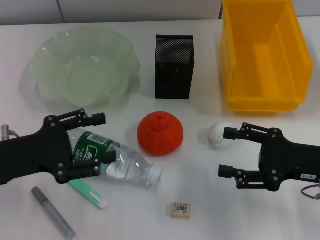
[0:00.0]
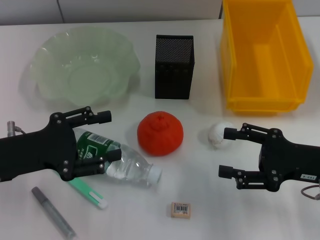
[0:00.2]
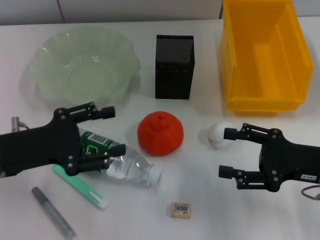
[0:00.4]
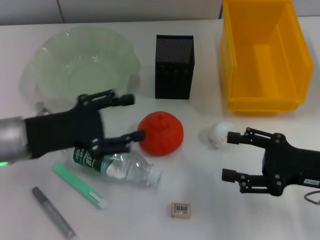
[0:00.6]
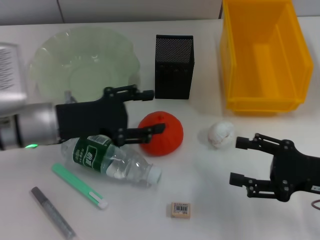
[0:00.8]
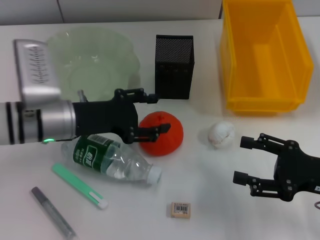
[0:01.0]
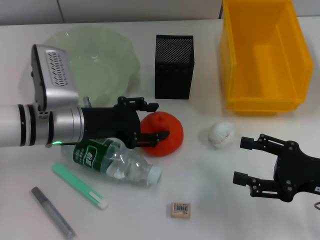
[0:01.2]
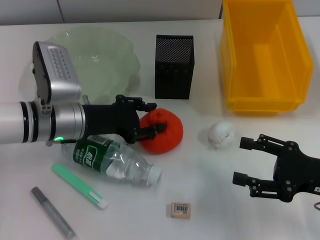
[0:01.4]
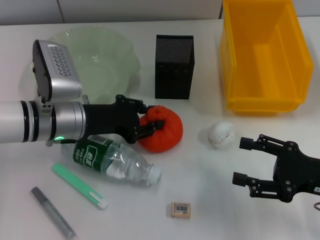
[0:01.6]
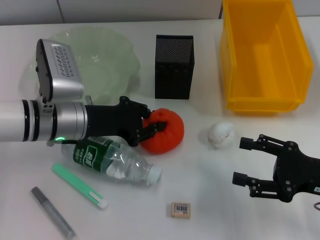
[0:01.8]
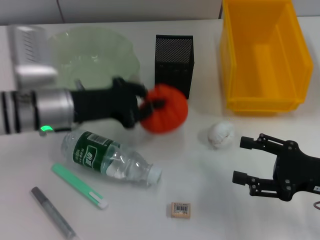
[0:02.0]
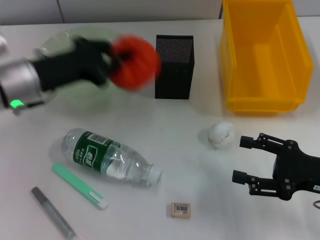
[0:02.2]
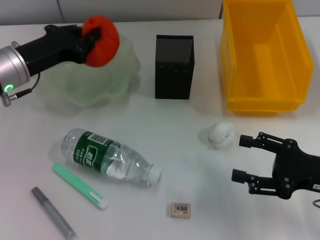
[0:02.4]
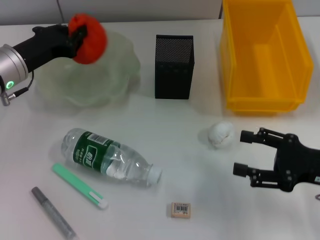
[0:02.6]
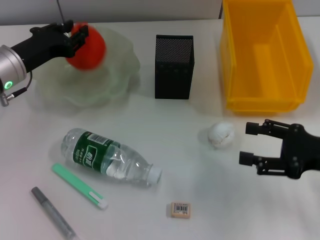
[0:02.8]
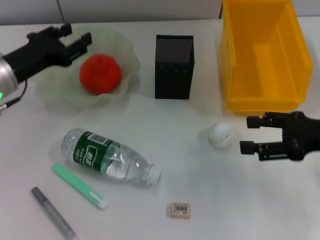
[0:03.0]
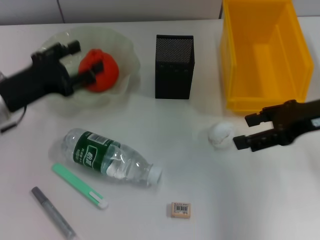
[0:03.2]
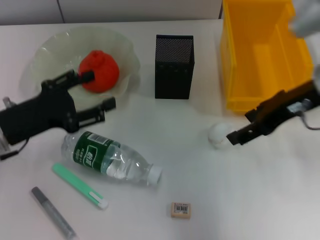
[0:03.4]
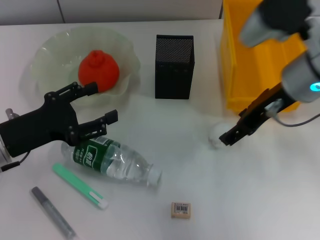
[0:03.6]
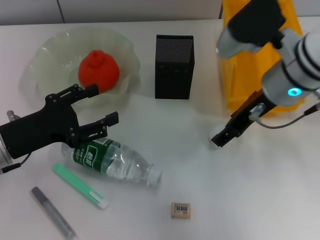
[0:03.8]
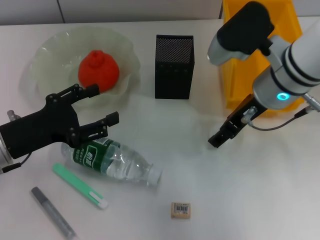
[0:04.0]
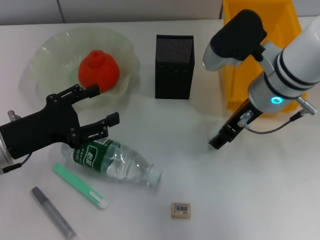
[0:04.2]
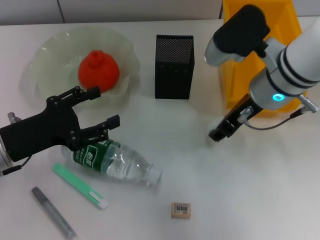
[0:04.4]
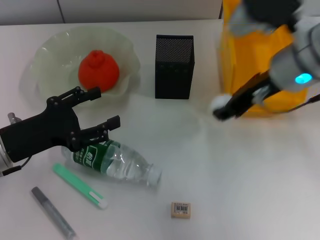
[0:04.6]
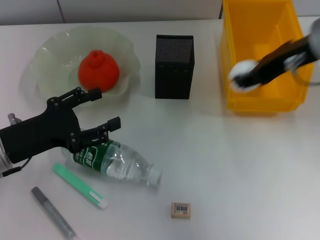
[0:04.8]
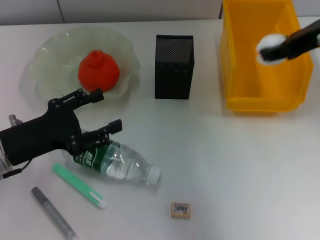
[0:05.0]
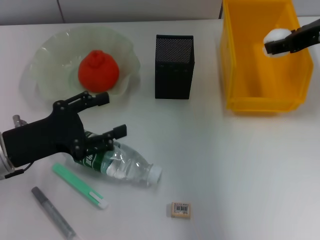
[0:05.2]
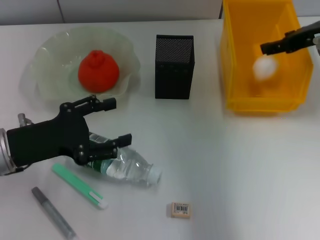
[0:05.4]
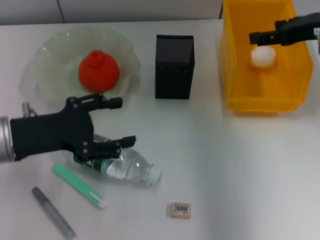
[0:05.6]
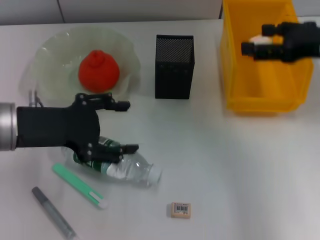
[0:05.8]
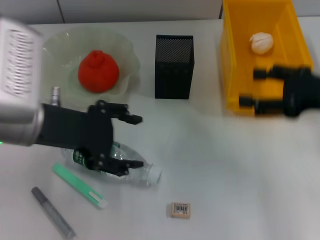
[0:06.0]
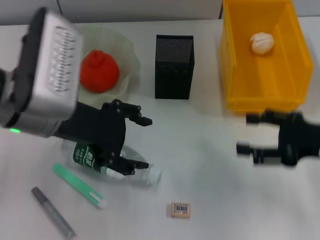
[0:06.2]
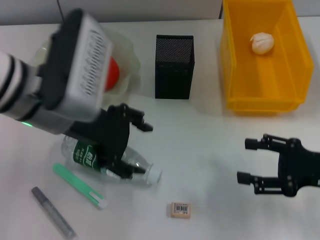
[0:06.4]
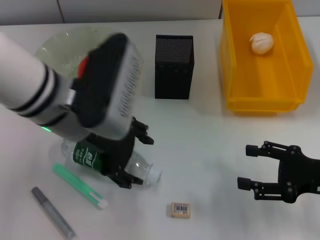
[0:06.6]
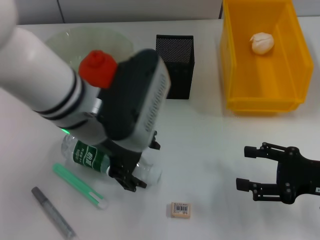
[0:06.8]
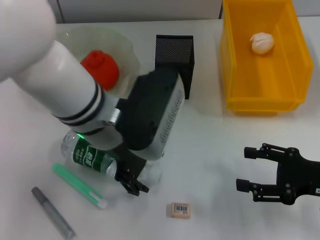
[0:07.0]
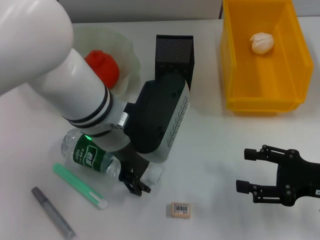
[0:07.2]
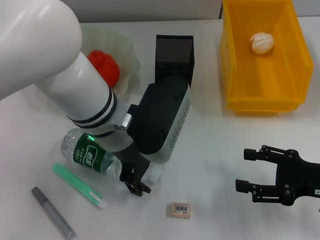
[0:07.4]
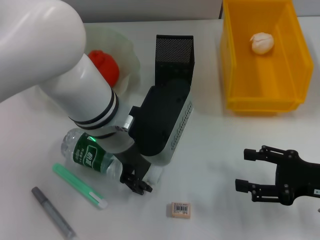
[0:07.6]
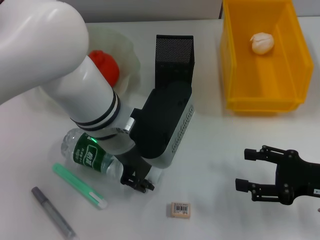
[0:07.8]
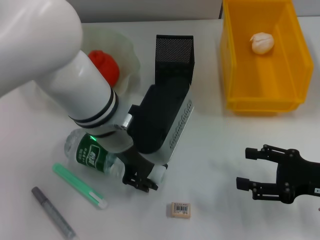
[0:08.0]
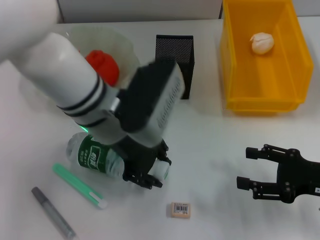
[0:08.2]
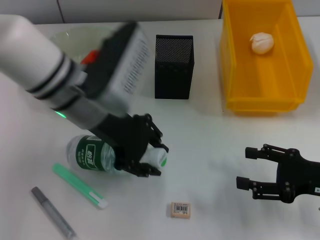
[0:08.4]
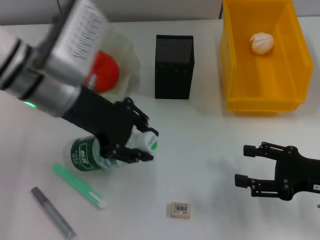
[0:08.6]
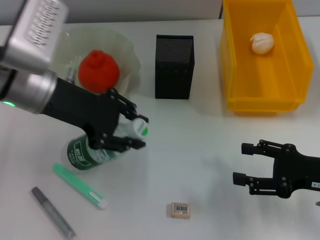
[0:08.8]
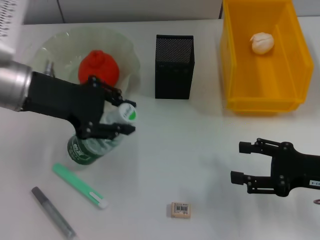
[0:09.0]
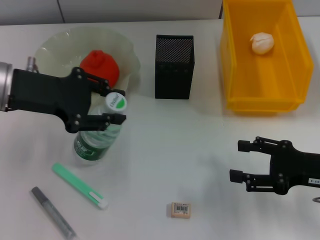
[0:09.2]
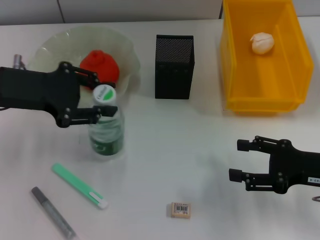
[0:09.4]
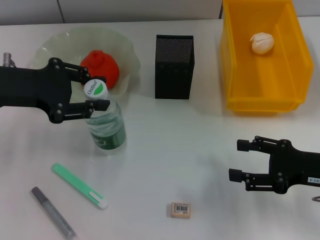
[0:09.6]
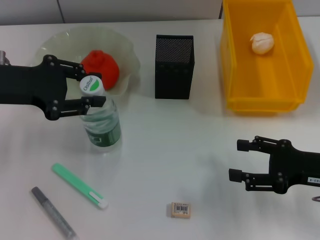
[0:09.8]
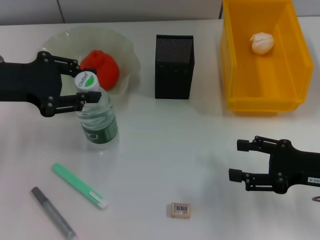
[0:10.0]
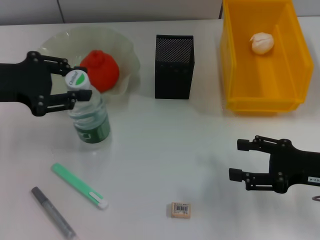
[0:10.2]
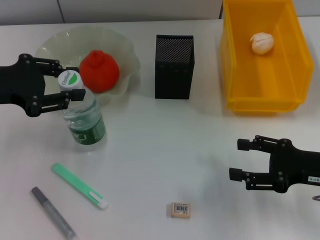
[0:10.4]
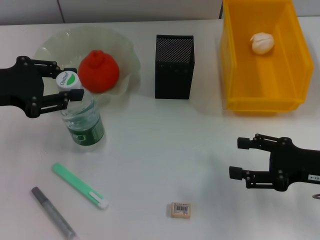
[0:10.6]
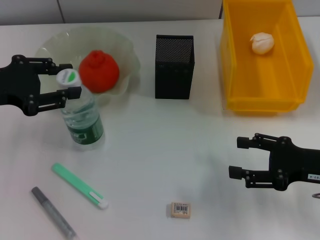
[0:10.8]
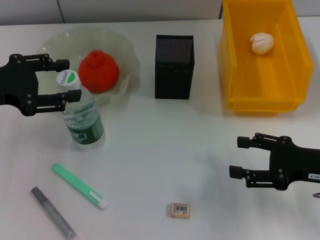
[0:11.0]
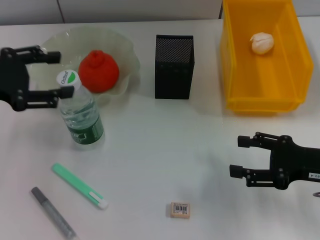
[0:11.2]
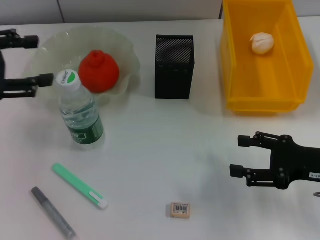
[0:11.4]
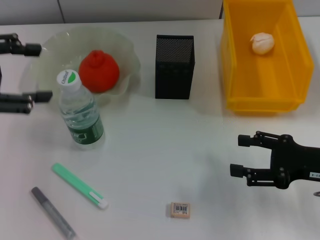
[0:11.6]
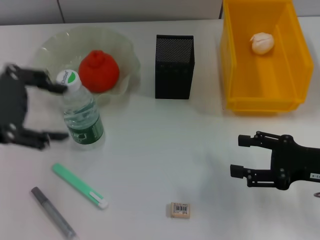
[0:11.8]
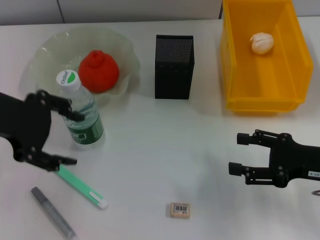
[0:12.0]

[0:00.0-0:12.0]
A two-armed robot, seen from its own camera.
Step, 0.0 to 1.6 s: Grab the orange with the left hand.
Step, 1.8 to 2.8 s: Place the orange into the fruit bowl with the left hand.
Step, 3.2 to 4.2 s: Grab the paper ball with the right hand.
Step, 4.4 to 5.6 s: Place the paper ball into the trash can with the right hand.
Step, 5.8 to 7.8 s: Grab the water bottle with the left hand.
Step, 8.2 to 10.8 s: Place the water bottle on the table with the left hand.
0.0 to 1.6 s: The left gripper goes some 15 cm forward and to the right.
1.6 to 3.0 s: The right gripper shifts approximately 10 cm upward and forward; the left gripper heads to the left, covering roughly 10 cm, and closes its fingers.
3.0 to 4.4 s: The left gripper heads backward, covering roughly 10 cm, and opens. Meanwhile the right gripper is displaced to the left and forward by approximately 15 cm.
4.4 to 6.0 s: The left gripper heads upward and to the right, covering approximately 10 cm. Meanwhile the right gripper moves to the right and backward, about 15 cm.
6.0 to 7.6 s: The right gripper shifts roughly 10 cm downward and backward. Meanwhile the left gripper shifts roughly 10 cm to the right.
7.6 to 9.0 s: The left gripper goes about 15 cm to the left, and closes its fingers.
9.0 to 10.4 s: The left gripper is displaced to the left by roughly 10 cm.
10.4 to 12.0 s: The left gripper shifts some 10 cm upward and to the right, and opens up.

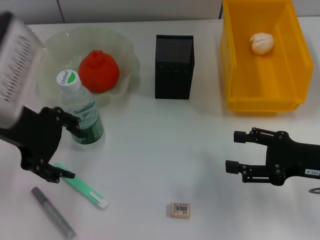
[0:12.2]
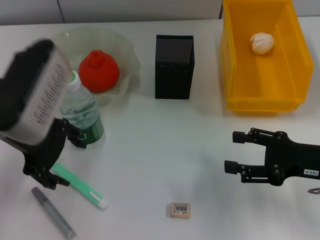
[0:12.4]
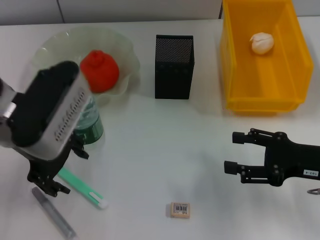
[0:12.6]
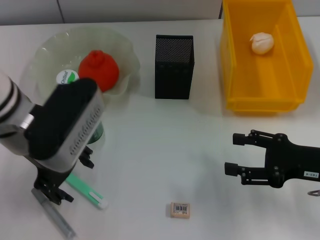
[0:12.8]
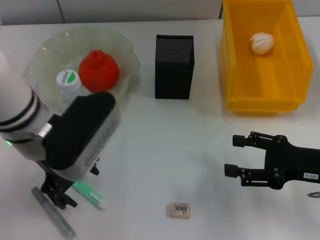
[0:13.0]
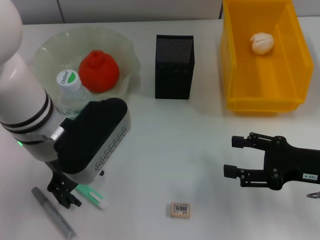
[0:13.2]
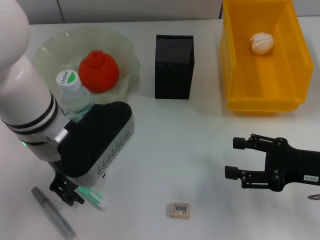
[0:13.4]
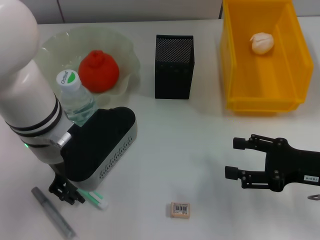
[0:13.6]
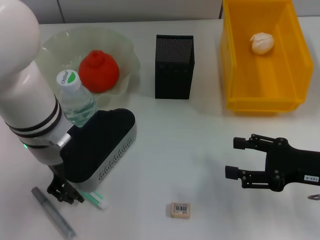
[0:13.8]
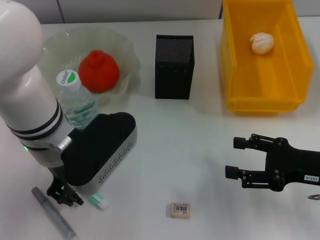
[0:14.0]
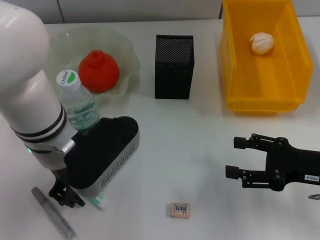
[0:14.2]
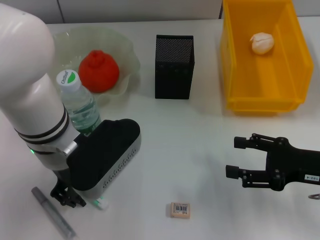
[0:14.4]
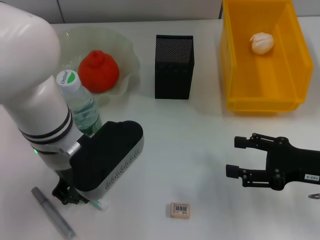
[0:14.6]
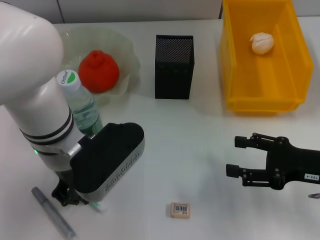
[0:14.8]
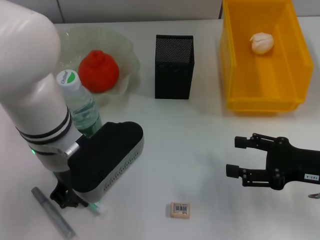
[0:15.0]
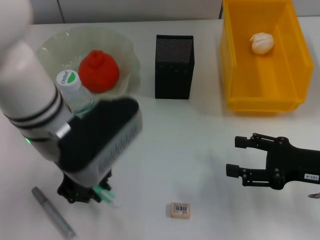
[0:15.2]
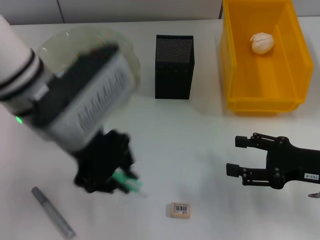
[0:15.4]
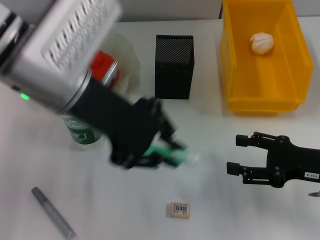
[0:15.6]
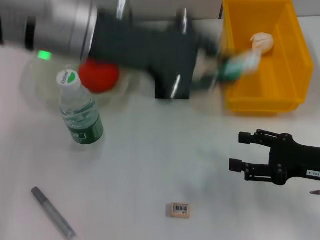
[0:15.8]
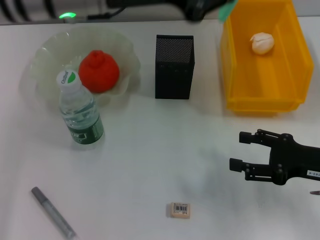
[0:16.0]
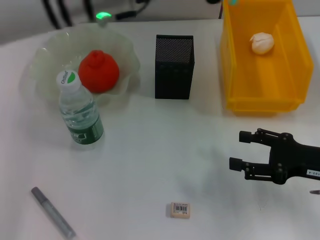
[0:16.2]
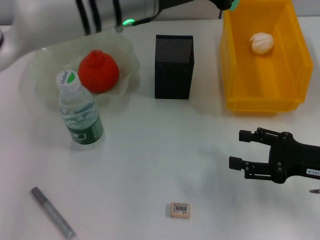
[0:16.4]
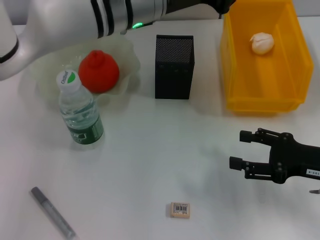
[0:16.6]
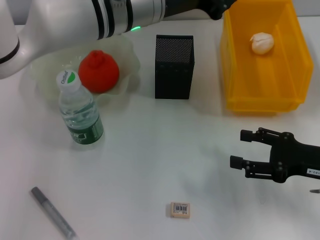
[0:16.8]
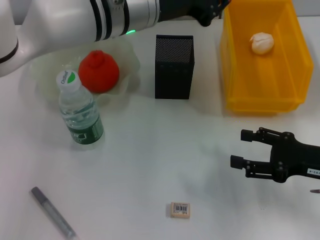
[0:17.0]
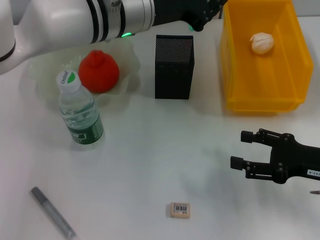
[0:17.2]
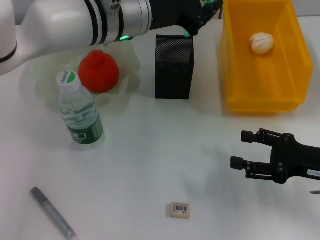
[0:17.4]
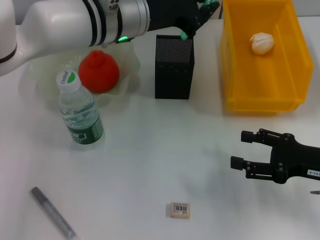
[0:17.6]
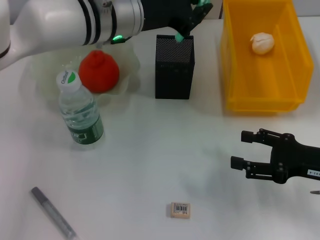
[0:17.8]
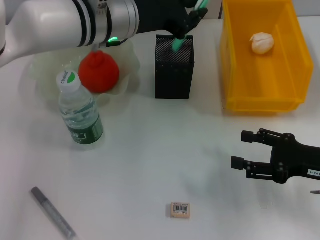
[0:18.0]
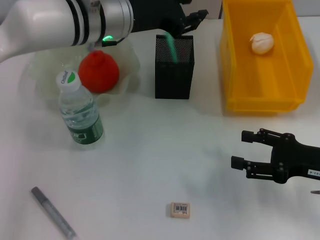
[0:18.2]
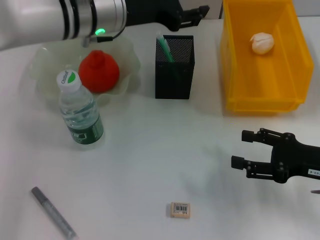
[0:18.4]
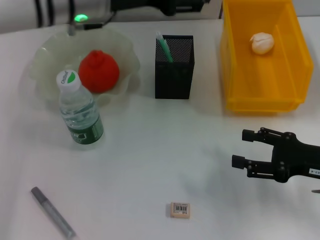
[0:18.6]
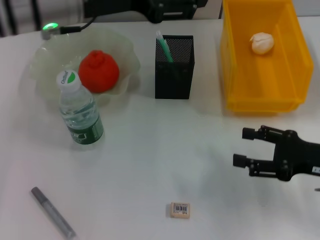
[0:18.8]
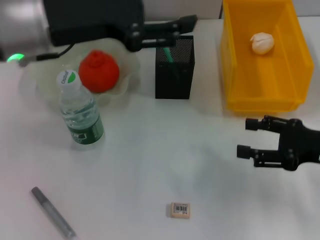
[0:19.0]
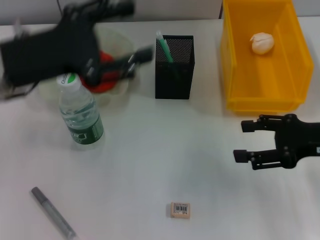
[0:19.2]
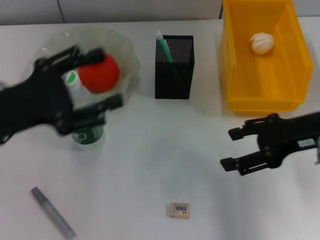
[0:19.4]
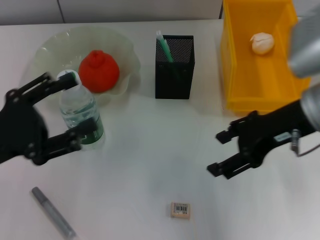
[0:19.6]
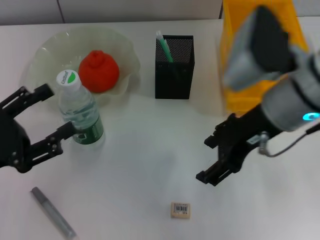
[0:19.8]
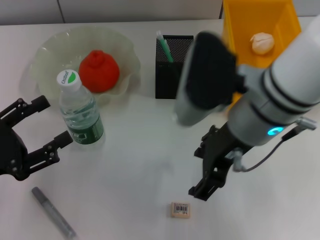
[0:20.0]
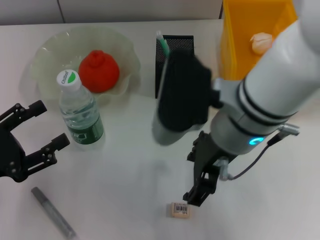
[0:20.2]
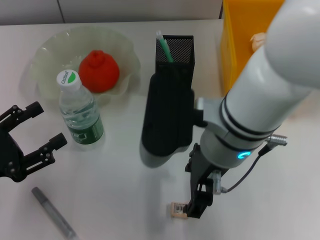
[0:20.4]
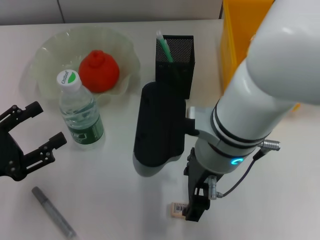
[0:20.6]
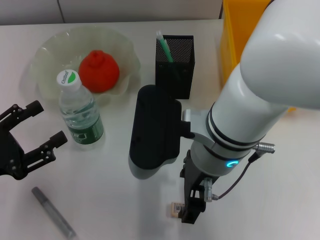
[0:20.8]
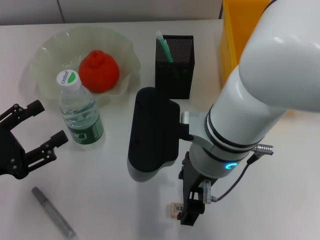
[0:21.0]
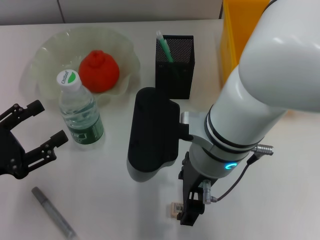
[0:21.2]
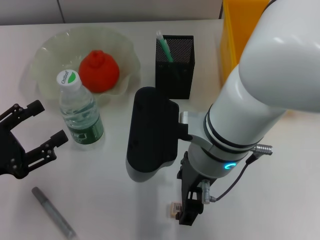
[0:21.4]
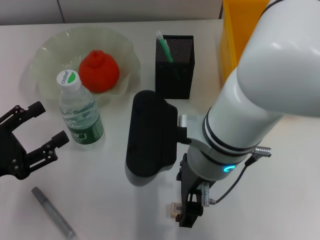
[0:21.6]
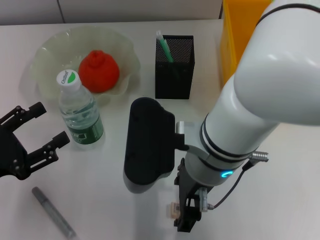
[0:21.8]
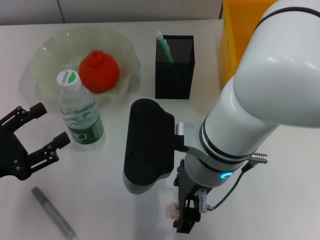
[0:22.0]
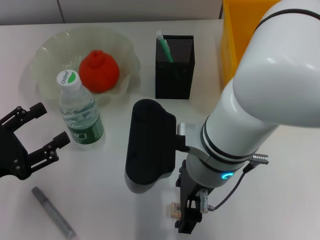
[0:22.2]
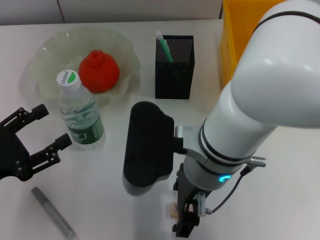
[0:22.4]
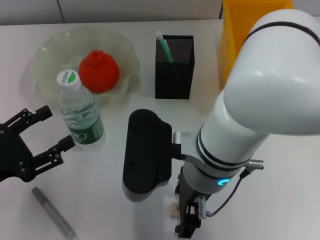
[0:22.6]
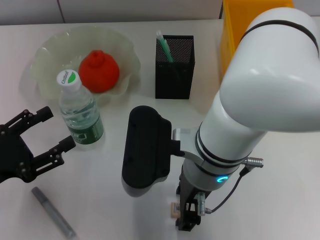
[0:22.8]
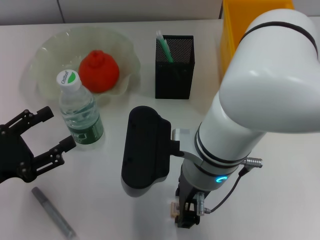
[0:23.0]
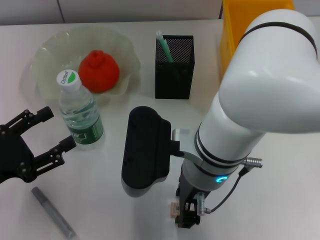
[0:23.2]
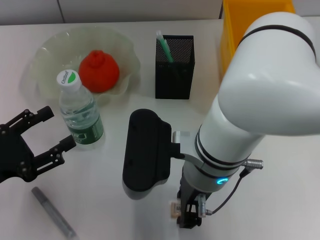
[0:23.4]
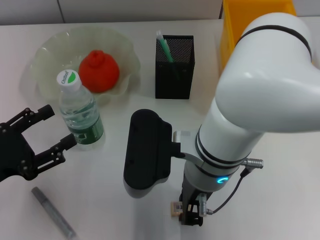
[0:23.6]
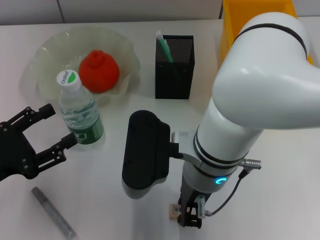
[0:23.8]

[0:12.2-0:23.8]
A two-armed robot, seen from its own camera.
Step, 12.2 to 14.8 s: Grab the blue utility knife with the left hand.
Step, 15.0 to 18.0 s: Place the blue utility knife into the pen holder with the left hand.
Step, 18.4 to 23.6 s: Grab the eraser with the right hand.
12.2 to 13.6 s: The left gripper moves to the right and downward, about 10 cm.
13.6 to 15.0 s: The left gripper closes up.
15.0 to 16.6 s: The left gripper travels forward, upward and to the right by roughly 15 cm.
16.6 to 18.0 s: The left gripper changes place by some 5 cm.
18.0 to 19.4 s: The right gripper goes approximately 10 cm upward; the left gripper goes some 20 cm to the left and backward, and opens up.
19.4 to 21.0 s: The right gripper heads to the left, covering about 20 cm. The left gripper shifts roughly 10 cm downward, backward and to the left.
21.0 to 22.4 s: There are only small adjustments of the grippers.
22.4 to 23.8 s: The right gripper closes up.
